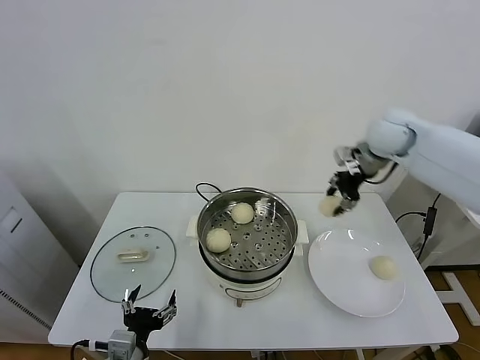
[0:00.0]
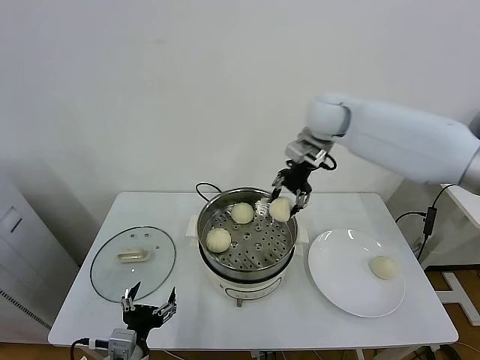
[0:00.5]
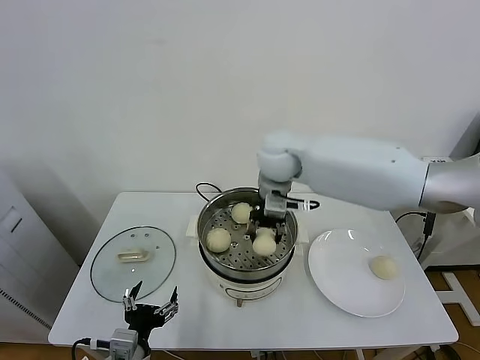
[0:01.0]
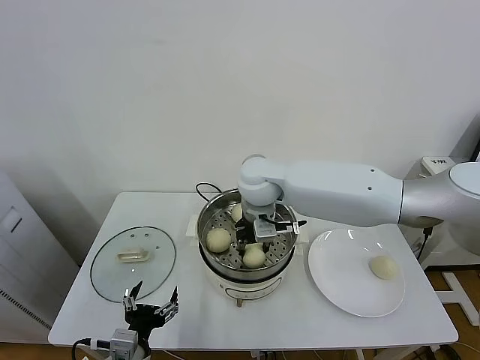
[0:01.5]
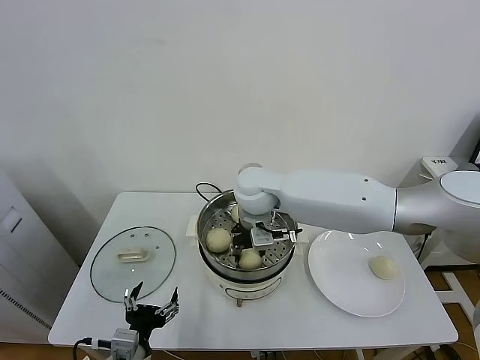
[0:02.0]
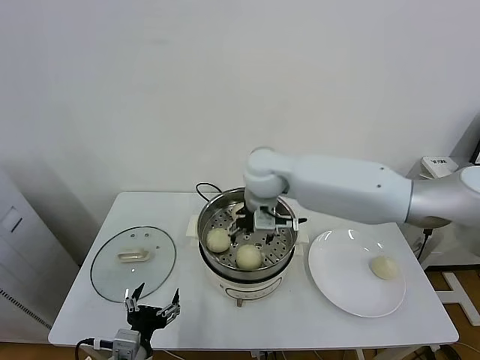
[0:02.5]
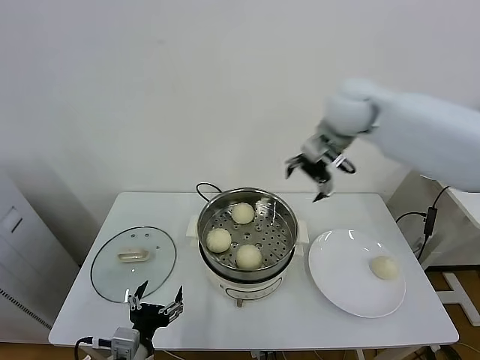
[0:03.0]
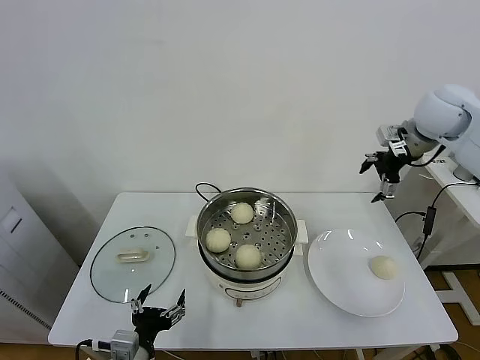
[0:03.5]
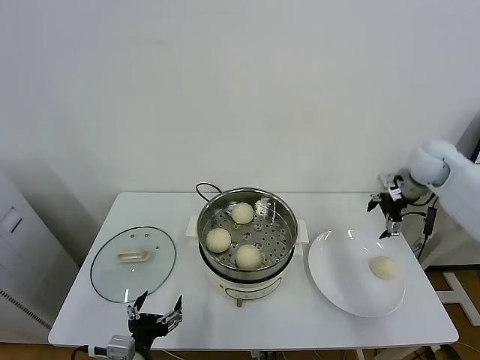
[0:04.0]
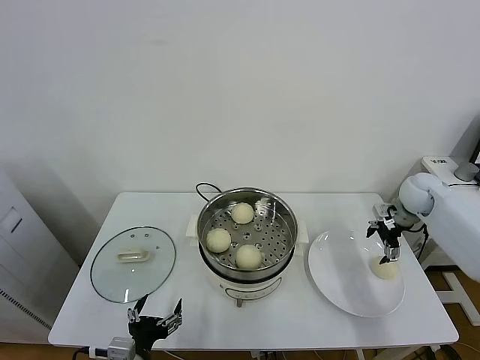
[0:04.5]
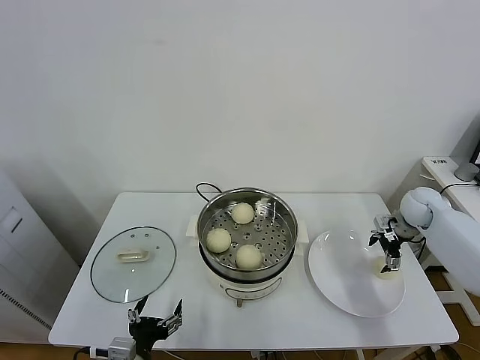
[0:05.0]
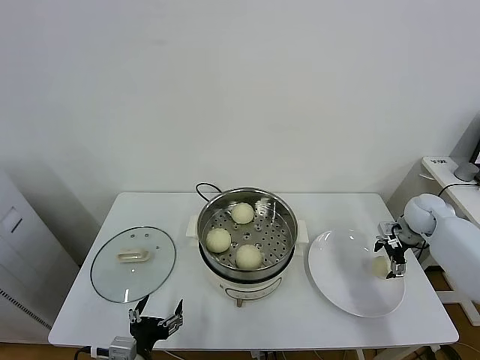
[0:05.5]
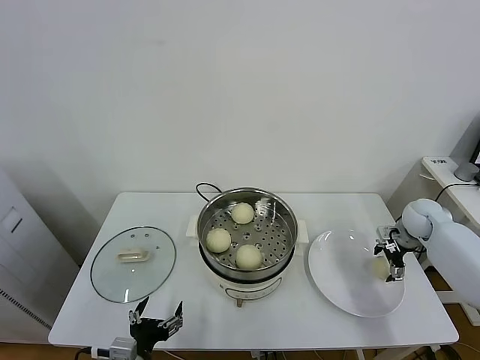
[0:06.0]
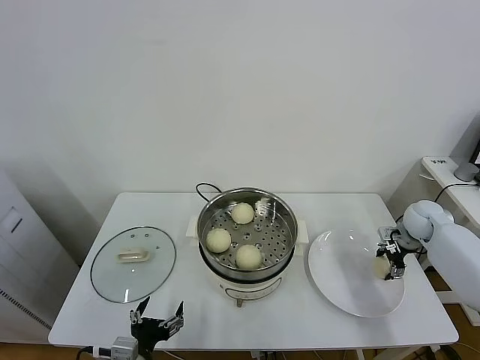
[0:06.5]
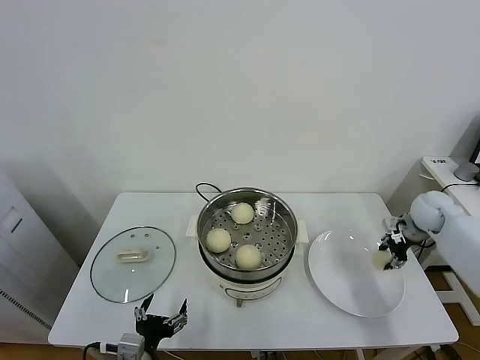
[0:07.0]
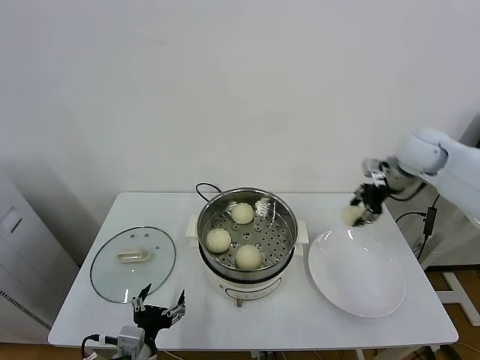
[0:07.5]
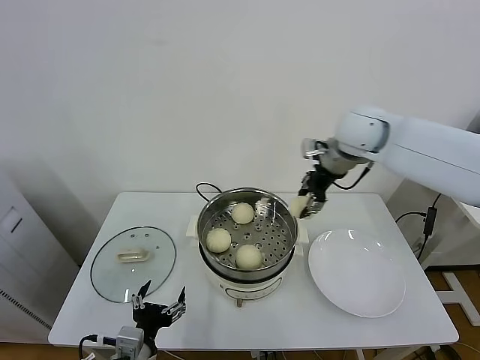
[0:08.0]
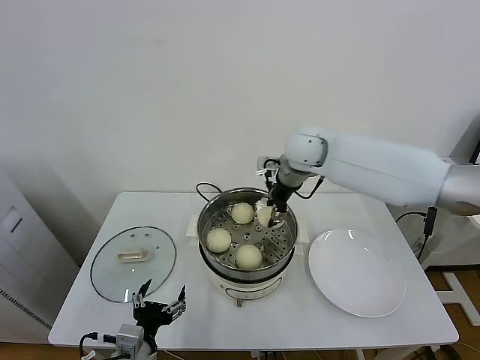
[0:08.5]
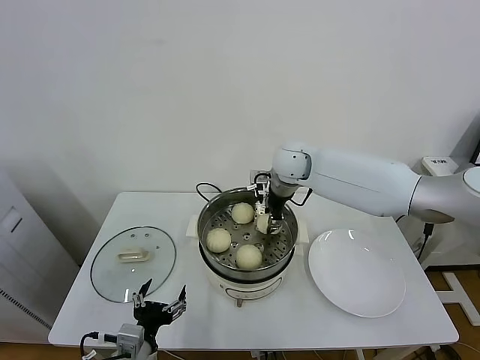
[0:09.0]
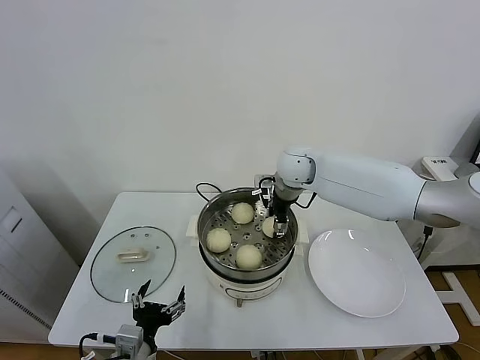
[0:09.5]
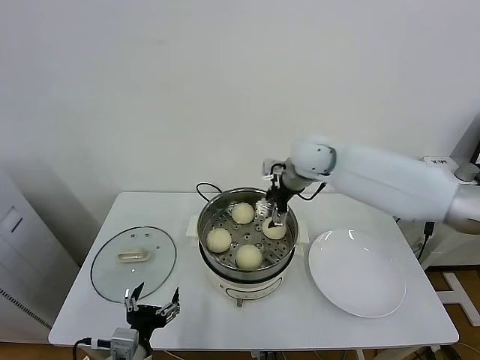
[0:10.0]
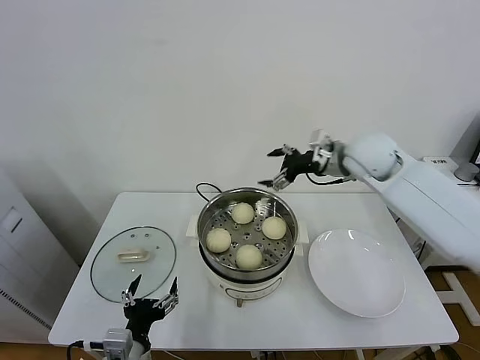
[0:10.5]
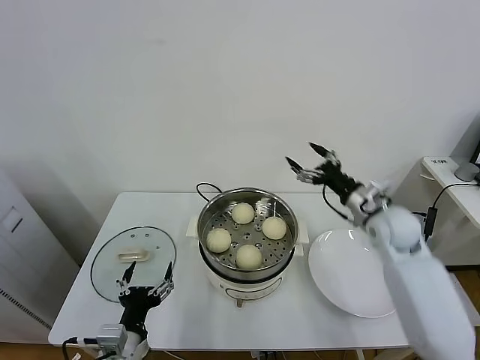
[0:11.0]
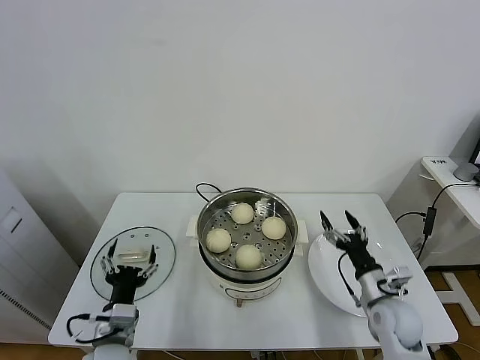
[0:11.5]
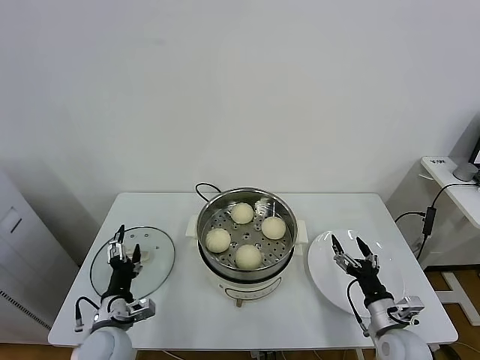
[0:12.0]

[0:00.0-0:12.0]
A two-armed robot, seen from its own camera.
Task of the whole recording: take steamed baozi put them in steamer.
Step, 0.0 to 2.0 s: Place the baozi on the steamer with right gripper.
Step, 2.5 to 6.5 s: Grasp the baozi in the plate with right gripper.
Step, 7.0 to 9.5 s: Place the baozi on the steamer with right gripper.
0.0 to 2.0 s: The right gripper shifts some 30 cm to the left and downward.
2.0 to 4.0 s: The right gripper heads to the right, covering roughly 40 cm, and opens its fingers.
4.0 to 6.0 s: The right gripper heads downward, covering roughly 15 cm.
6.0 to 8.0 s: The right gripper is displaced upward and to the left by about 35 cm, and closes its fingers.
8.0 to 10.0 s: The right gripper is displaced downward and to the left by approximately 10 cm, and opens up.
10.0 to 12.0 s: The left gripper moves forward, about 10 cm; the right gripper heads downward, backward and to the right, covering approximately 50 cm.

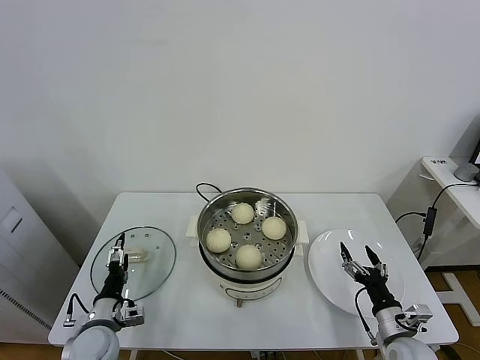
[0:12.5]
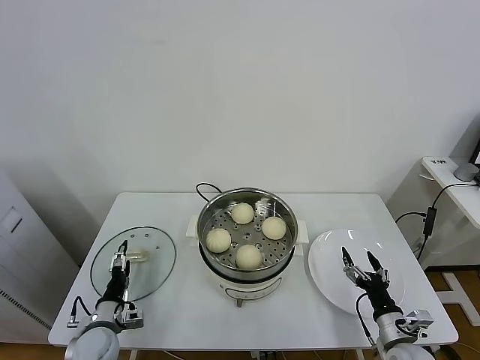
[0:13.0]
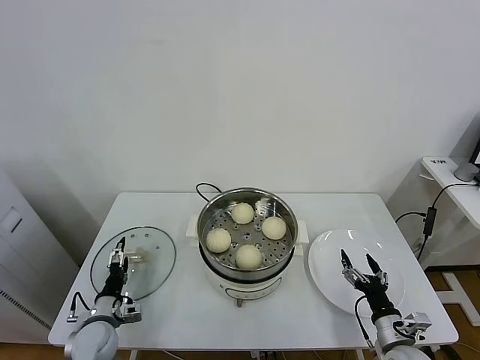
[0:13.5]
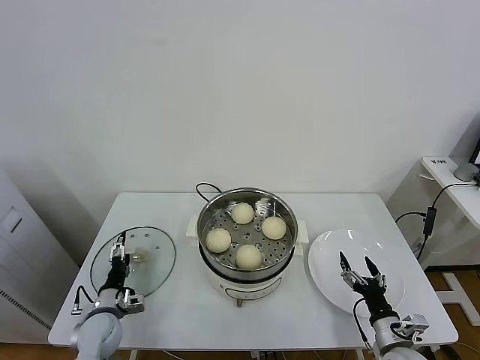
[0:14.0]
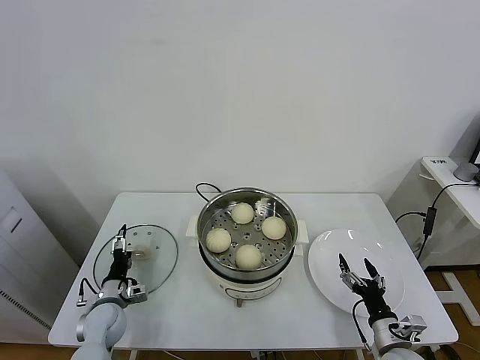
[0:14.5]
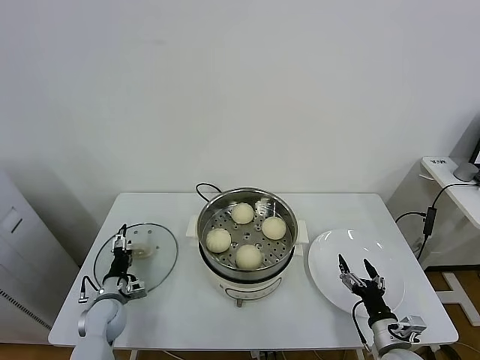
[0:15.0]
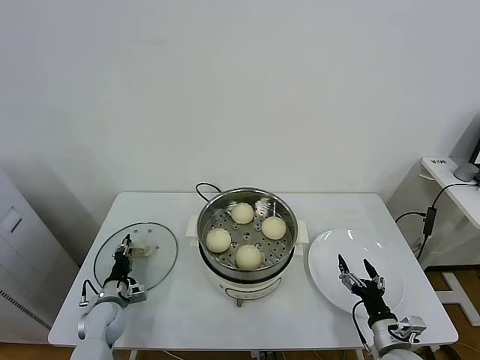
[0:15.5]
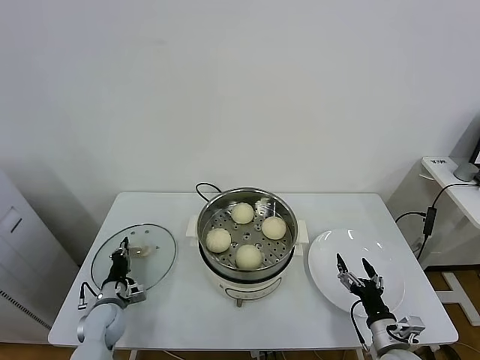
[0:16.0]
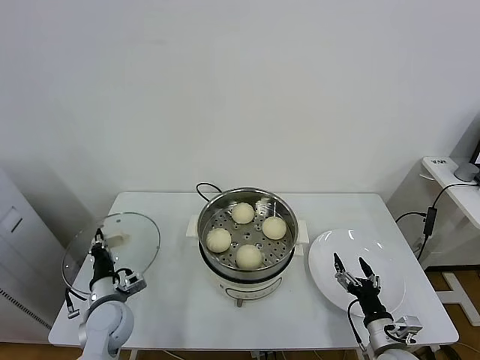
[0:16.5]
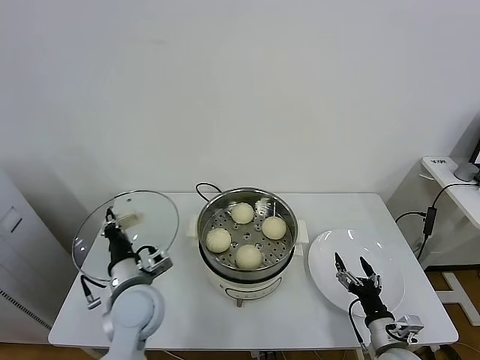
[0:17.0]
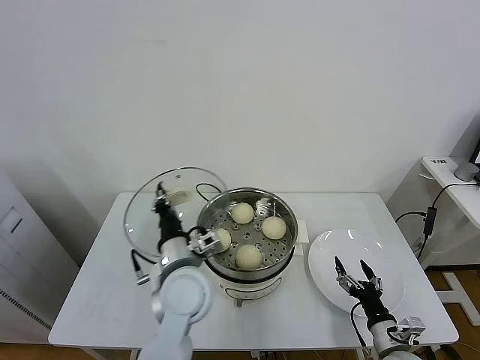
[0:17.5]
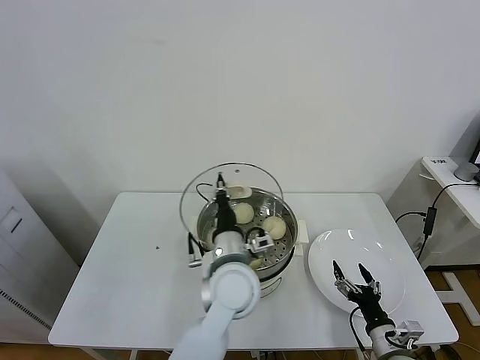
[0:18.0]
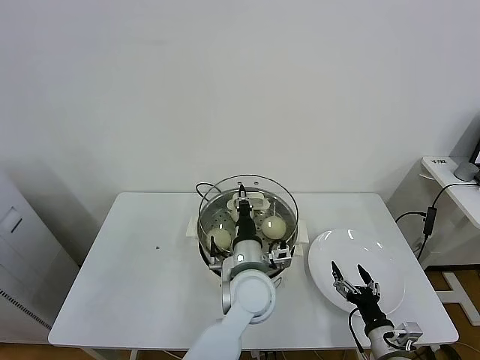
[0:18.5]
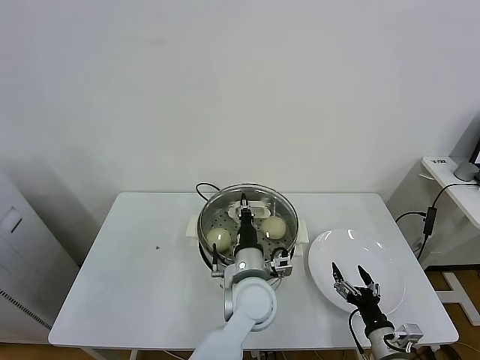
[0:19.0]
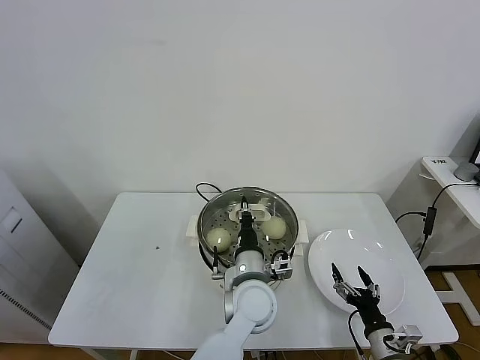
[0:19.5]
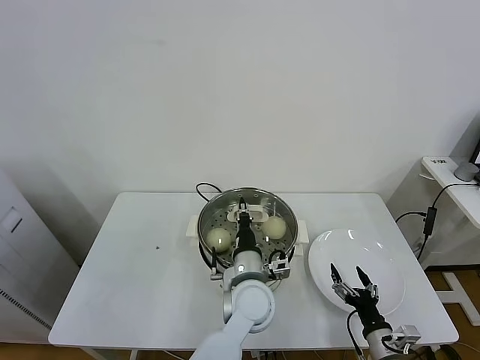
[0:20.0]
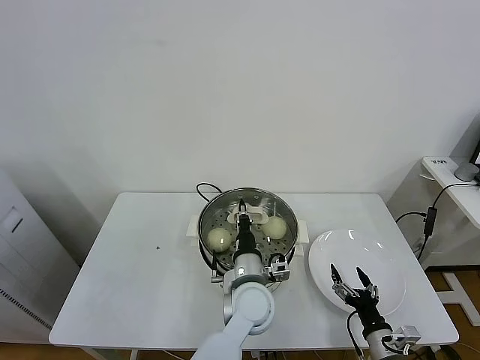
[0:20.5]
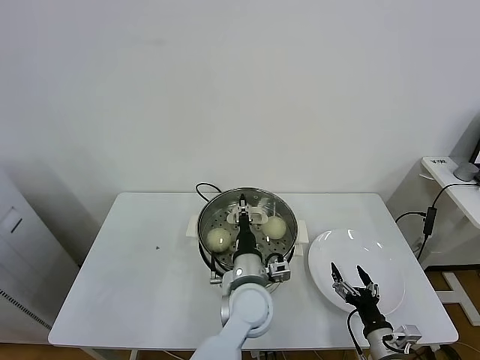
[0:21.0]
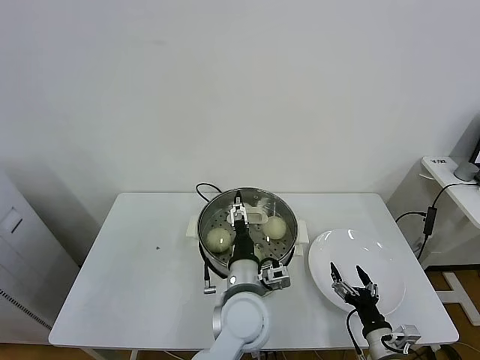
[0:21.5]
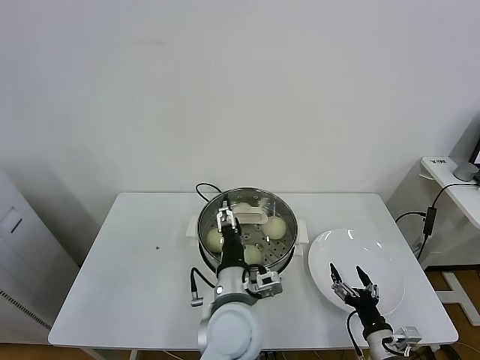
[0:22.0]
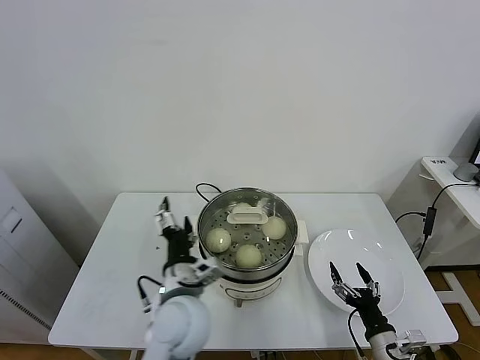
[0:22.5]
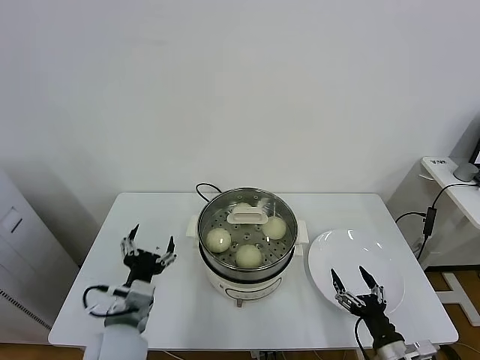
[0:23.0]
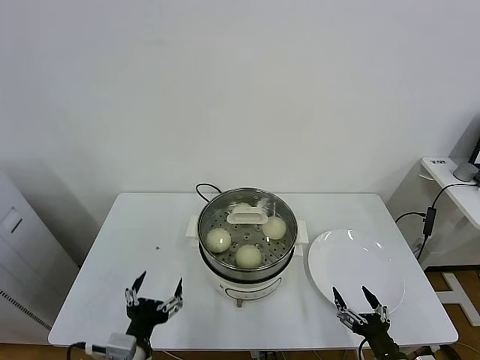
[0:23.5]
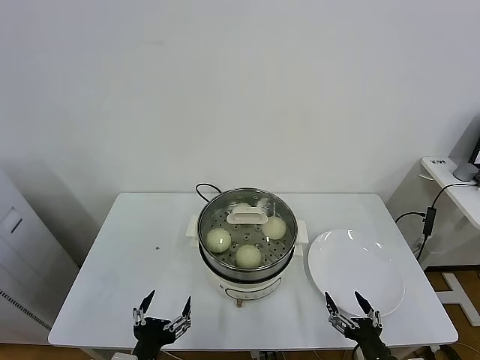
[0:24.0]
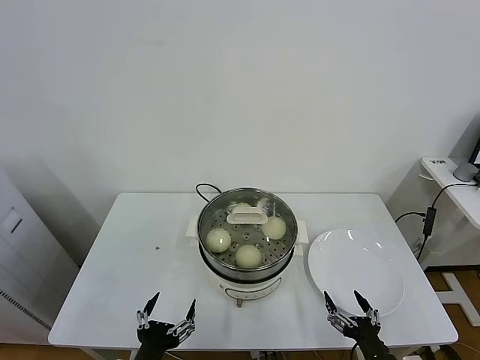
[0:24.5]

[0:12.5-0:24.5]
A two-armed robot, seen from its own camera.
Task of the whole recording: take steamed baozi put them in steamer.
Step, 12.5 to 15.5 s: Grasp the pot lid with left gripper.
Step, 16.0 to 21.5 s: Place the pot lid on the steamer with left gripper.
12.5 to 14.5 s: The left gripper is displaced forward by about 5 cm.
14.5 to 16.5 s: The left gripper heads upward, covering approximately 5 cm, and closes up.
16.5 to 18.5 s: The left gripper goes some 30 cm to the right.
18.5 to 20.5 s: The grippers make only small movements.
20.5 to 22.5 s: The left gripper heads to the left, upward and backward, covering roughly 15 cm, and opens its fingers.
22.5 to 24.5 s: The left gripper moves backward, to the left and downward, some 20 cm, while the right gripper heads backward, covering approximately 5 cm.

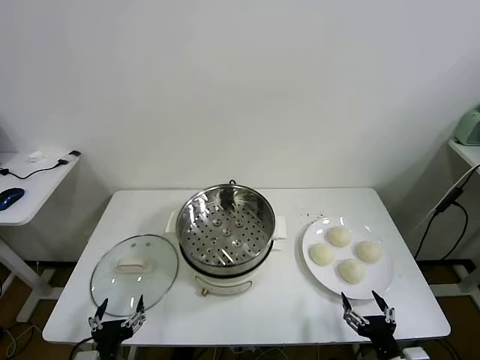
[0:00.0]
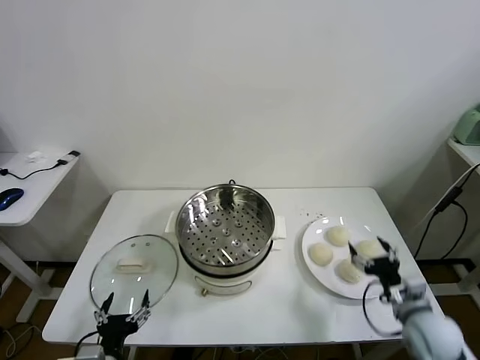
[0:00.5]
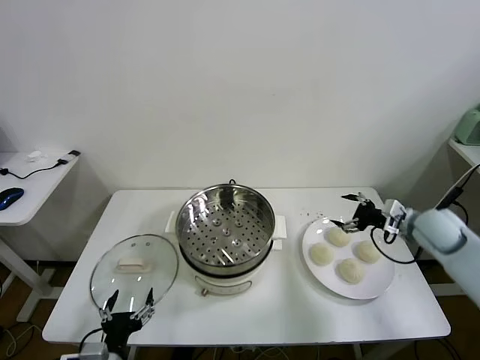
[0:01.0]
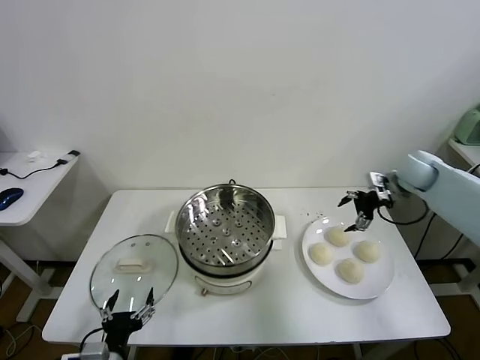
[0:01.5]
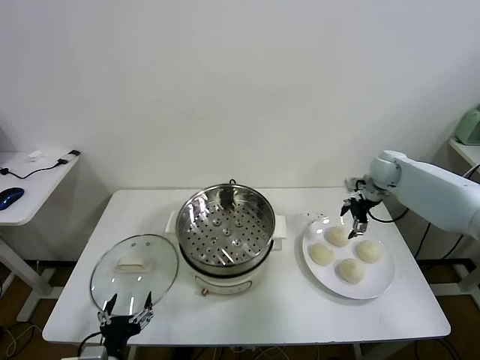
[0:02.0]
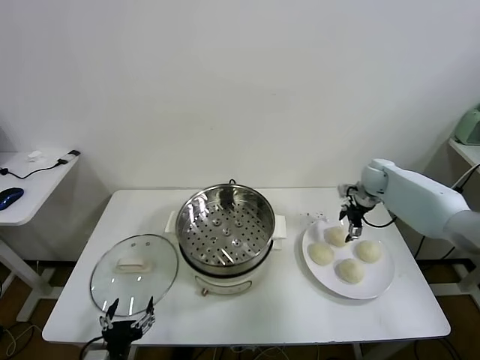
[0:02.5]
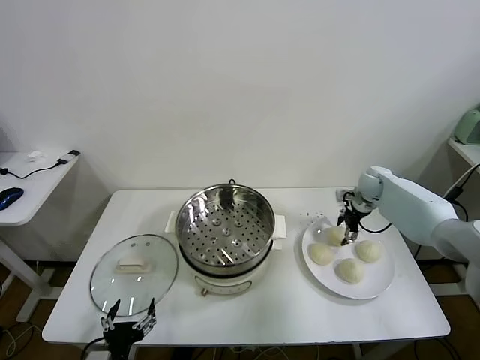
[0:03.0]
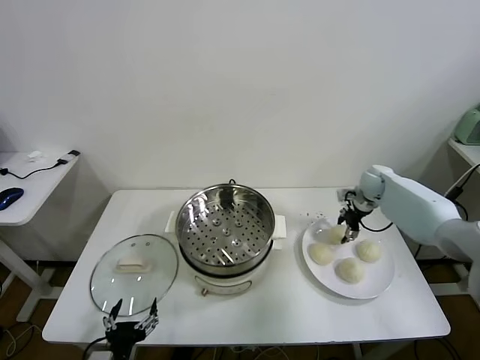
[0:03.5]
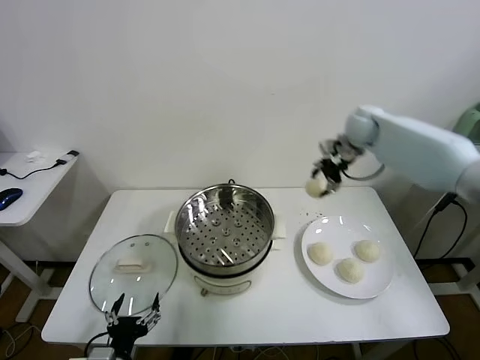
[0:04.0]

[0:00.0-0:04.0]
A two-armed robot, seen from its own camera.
Task of the whole recording: take steamed baozi put them in steamer.
Step, 0.0 to 3.0 s: Grasp the baozi in the plate with right gripper.
2.0 to 4.0 s: The right gripper heads upward and to the left, covering roughly 15 cm, and closes.
